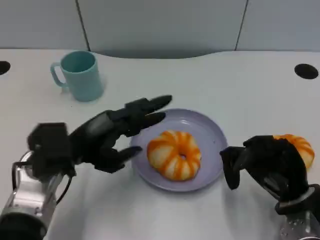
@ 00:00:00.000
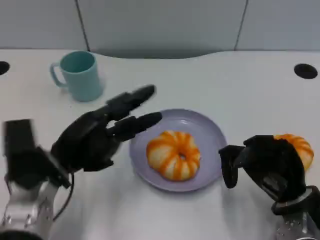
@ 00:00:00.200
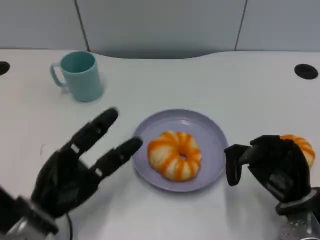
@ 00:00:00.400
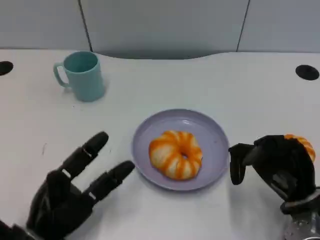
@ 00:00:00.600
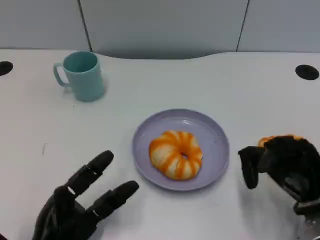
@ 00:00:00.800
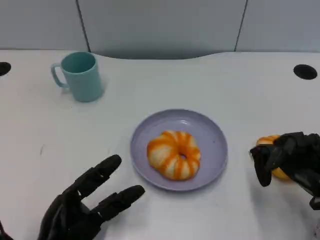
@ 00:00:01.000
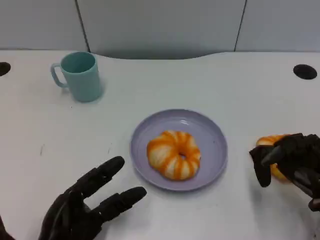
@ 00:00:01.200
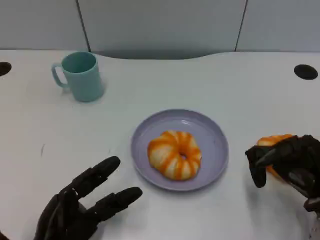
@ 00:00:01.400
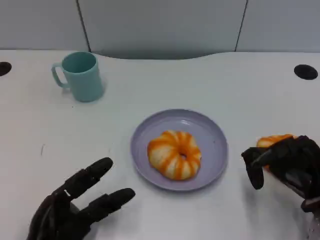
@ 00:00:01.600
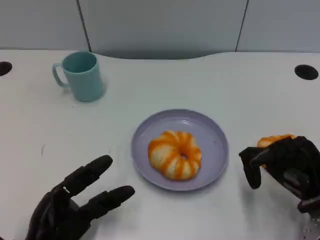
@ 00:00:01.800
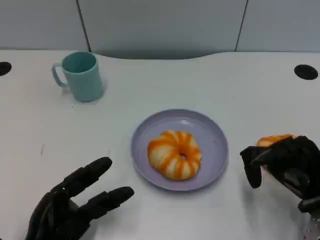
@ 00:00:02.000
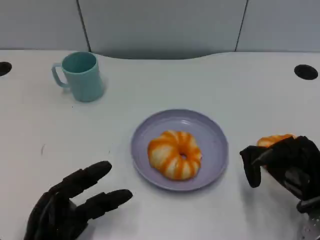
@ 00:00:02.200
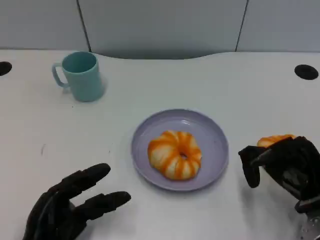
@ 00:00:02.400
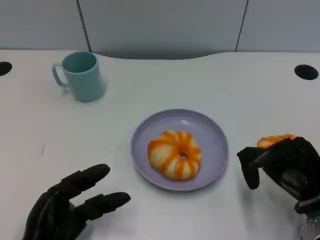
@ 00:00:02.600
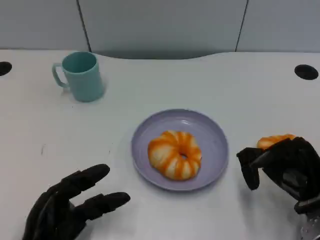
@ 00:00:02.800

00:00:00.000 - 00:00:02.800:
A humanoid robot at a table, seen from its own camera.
Task of the whole recording: Grasp the bread from the table and place it into the plate.
00:00:00.000 - 00:00:01.400: The left hand moves backward and downward, approximately 15 cm.
00:00:01.400 - 00:00:02.800: The hands stay close to where they were, moving slightly.

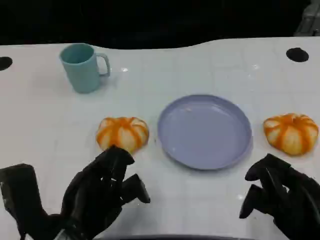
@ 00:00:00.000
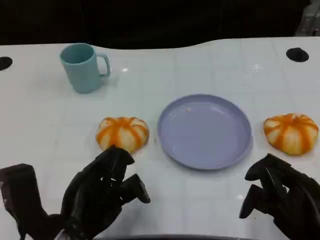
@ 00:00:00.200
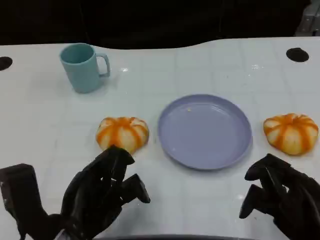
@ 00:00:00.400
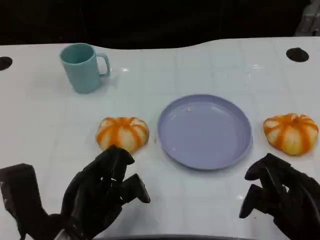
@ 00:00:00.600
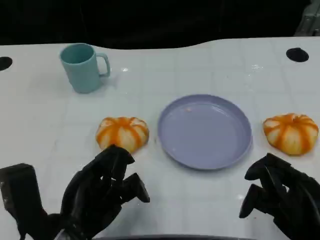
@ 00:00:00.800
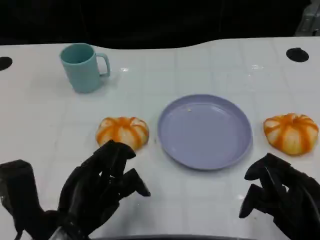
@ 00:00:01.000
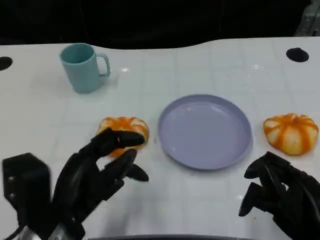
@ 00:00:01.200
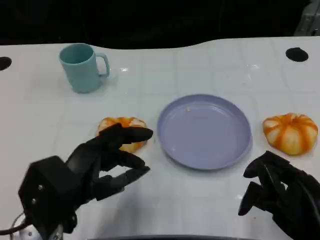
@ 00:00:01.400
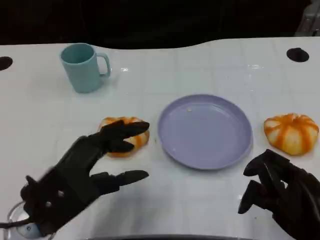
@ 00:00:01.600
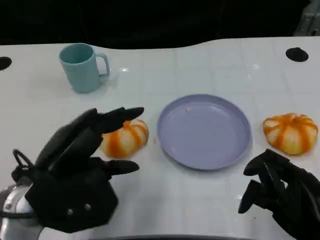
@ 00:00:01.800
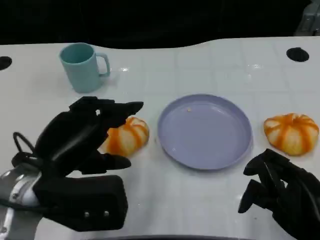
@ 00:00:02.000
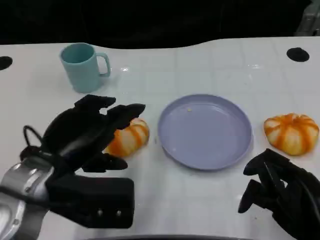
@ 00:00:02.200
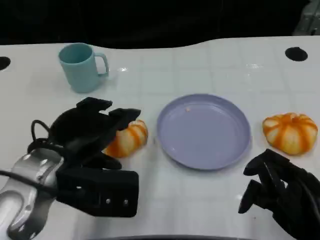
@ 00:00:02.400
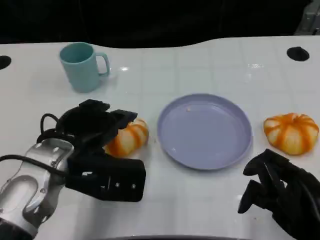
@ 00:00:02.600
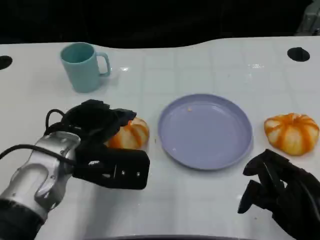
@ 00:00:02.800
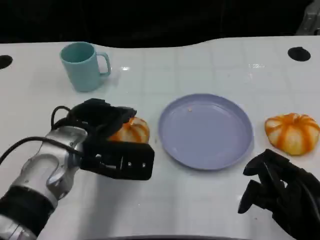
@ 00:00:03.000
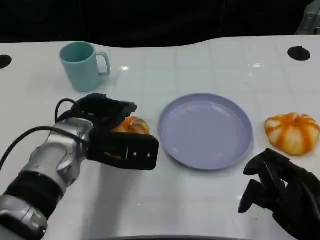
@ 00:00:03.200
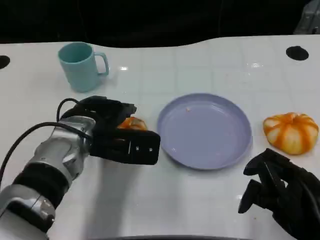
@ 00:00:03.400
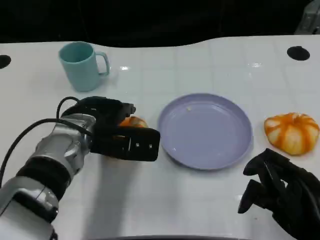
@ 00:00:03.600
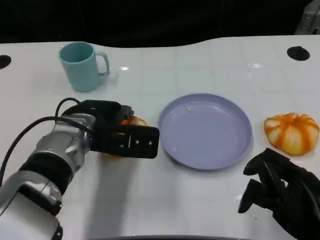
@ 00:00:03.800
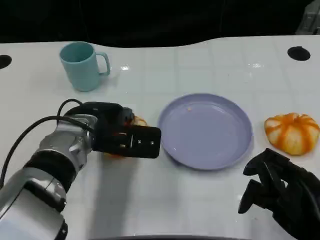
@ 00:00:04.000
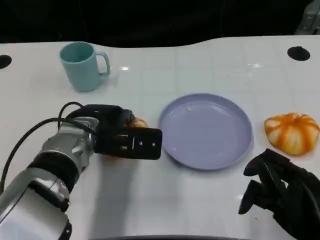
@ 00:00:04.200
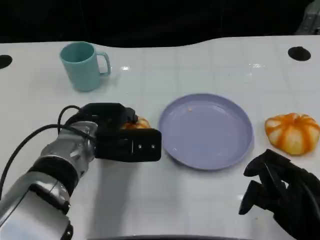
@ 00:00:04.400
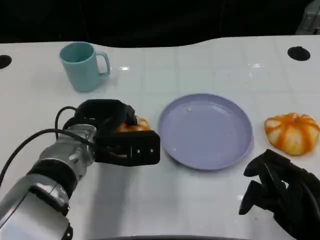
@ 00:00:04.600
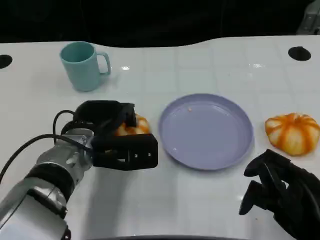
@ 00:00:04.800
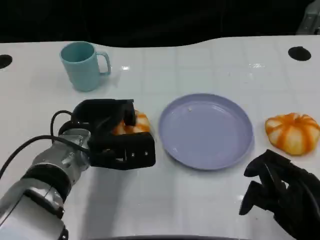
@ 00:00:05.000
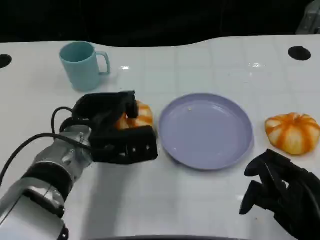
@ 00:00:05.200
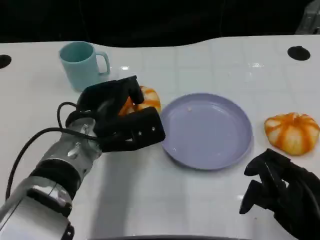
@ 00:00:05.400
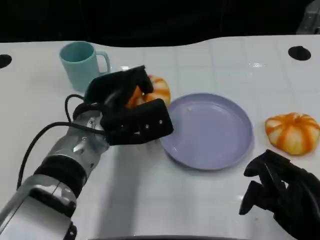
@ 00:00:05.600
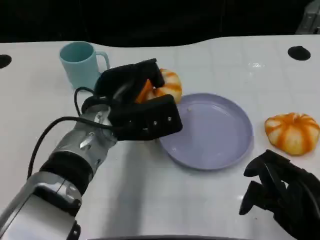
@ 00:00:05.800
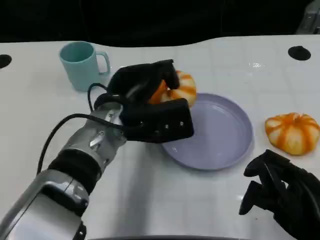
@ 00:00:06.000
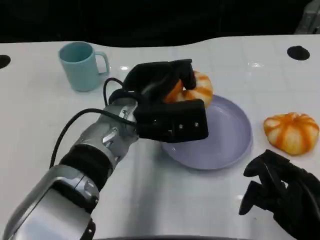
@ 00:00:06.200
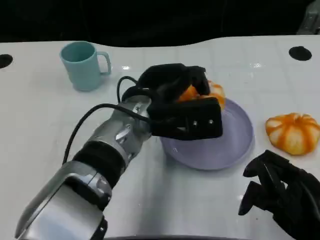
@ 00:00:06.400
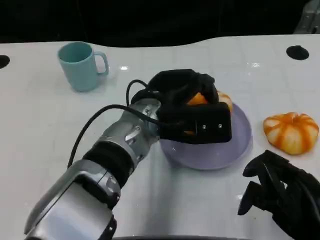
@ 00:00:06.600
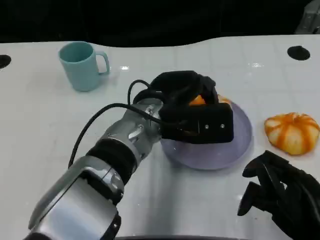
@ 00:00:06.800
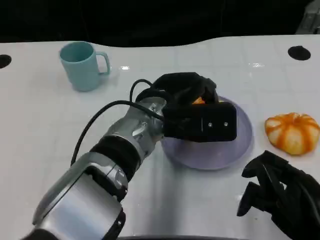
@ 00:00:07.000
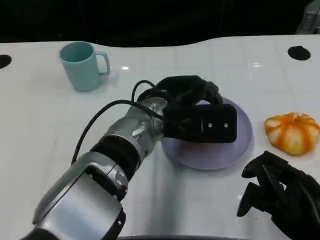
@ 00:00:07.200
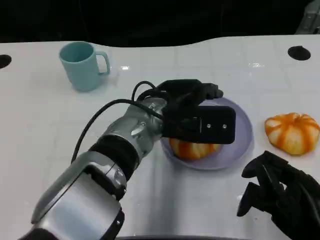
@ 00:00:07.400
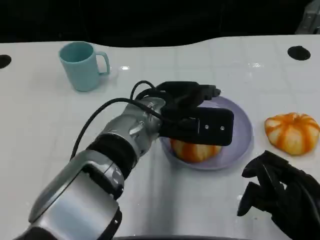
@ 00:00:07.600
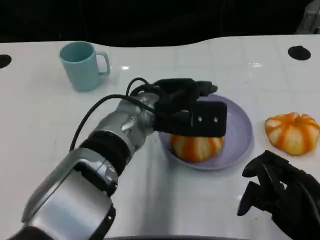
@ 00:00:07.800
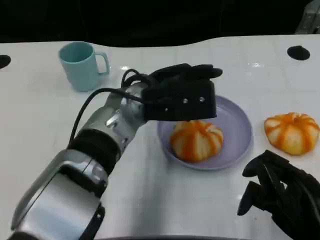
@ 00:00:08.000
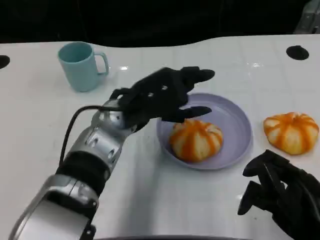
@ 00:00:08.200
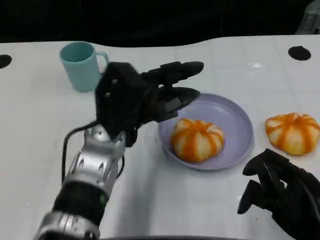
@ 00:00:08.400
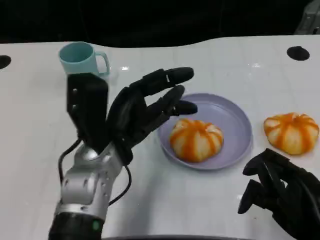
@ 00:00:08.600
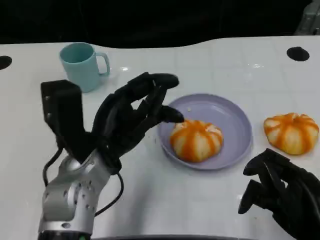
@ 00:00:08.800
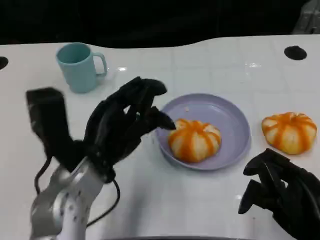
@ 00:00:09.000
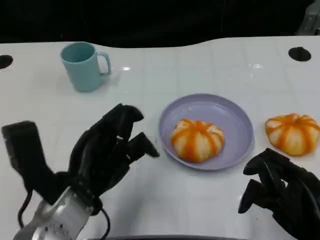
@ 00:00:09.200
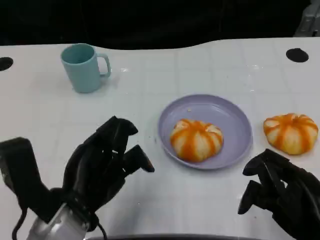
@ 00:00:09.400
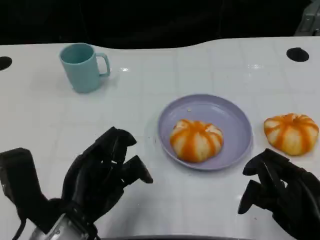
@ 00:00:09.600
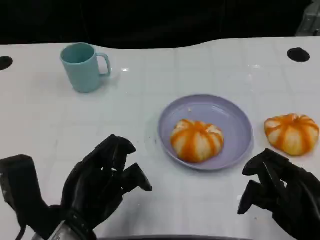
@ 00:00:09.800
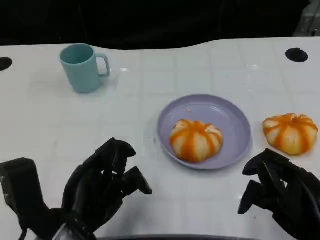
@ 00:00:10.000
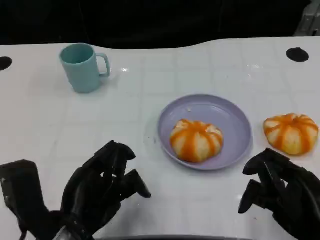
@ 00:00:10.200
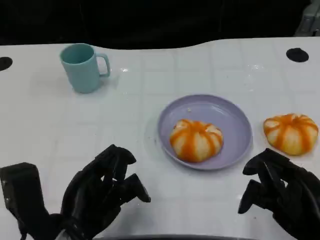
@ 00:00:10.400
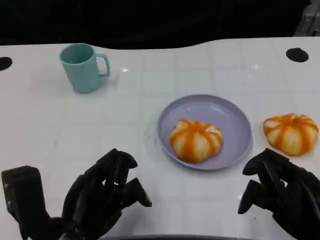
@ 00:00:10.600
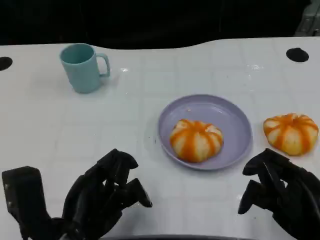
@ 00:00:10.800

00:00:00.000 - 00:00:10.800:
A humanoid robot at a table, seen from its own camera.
Task of the whole recording: Grasp the bread from the table and place it into the plate.
00:00:00.000 - 00:00:01.600: The left hand ends up approximately 5 cm from where it was.
00:00:01.600 - 00:00:03.000: The left hand is displaced forward by roughly 10 cm.
00:00:03.000 - 00:00:04.600: The hands make only small movements.
00:00:04.600 - 00:00:06.200: The left hand heads to the right and upward, covering about 10 cm.
00:00:07.800 - 00:00:09.200: The left hand moves backward and to the left, about 15 cm.
00:00:09.200 - 00:00:10.800: The hands move only a little.

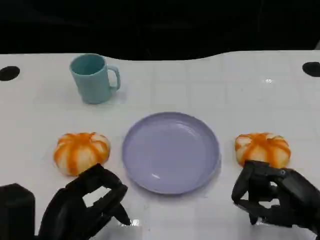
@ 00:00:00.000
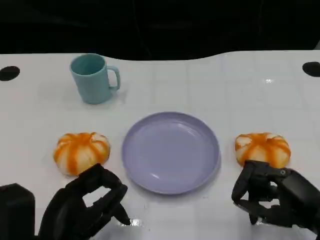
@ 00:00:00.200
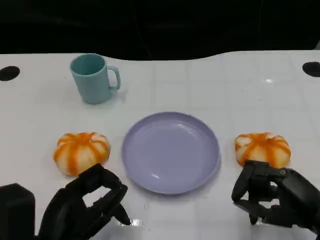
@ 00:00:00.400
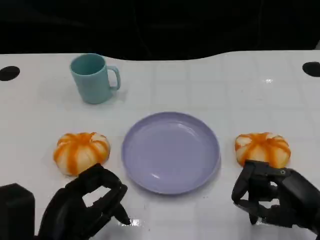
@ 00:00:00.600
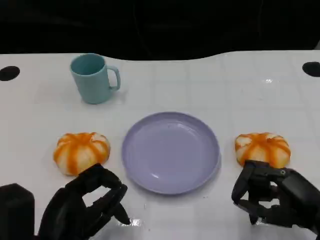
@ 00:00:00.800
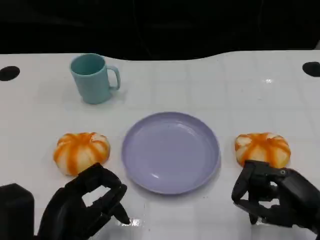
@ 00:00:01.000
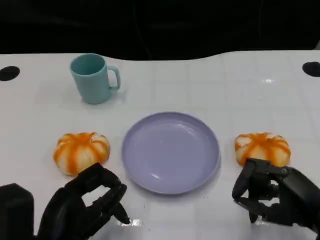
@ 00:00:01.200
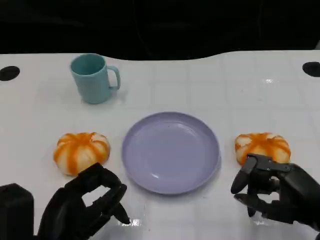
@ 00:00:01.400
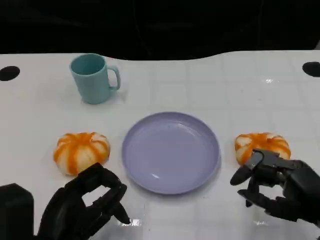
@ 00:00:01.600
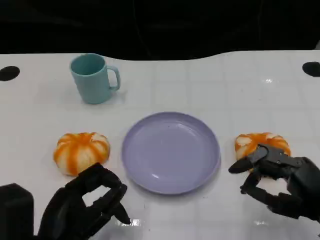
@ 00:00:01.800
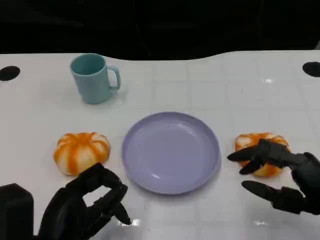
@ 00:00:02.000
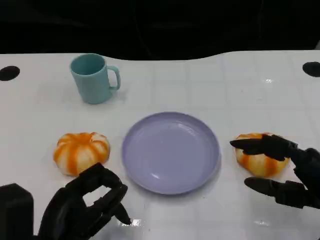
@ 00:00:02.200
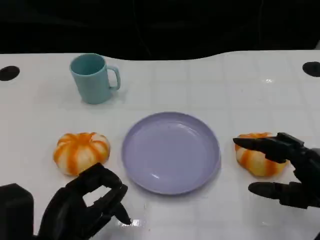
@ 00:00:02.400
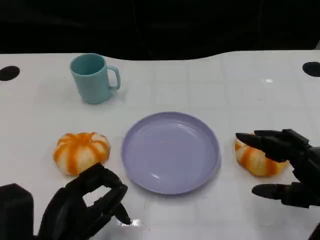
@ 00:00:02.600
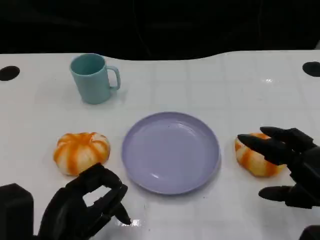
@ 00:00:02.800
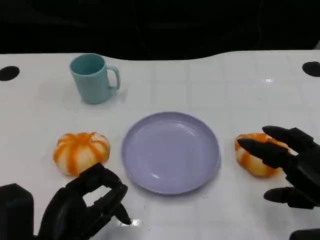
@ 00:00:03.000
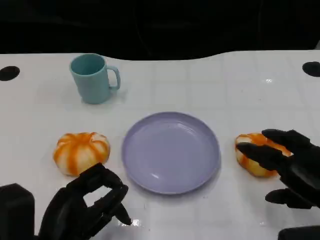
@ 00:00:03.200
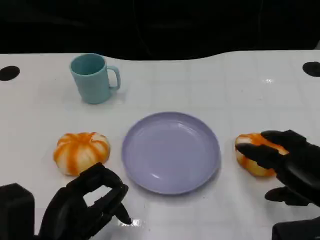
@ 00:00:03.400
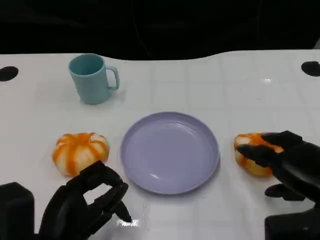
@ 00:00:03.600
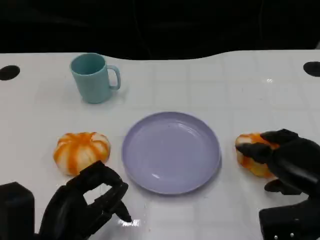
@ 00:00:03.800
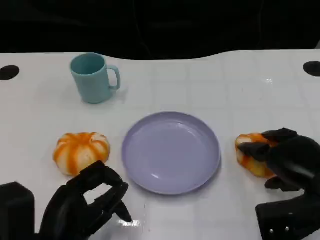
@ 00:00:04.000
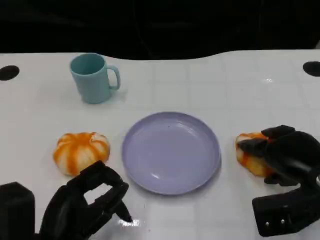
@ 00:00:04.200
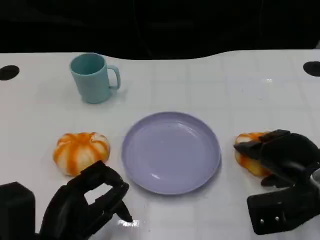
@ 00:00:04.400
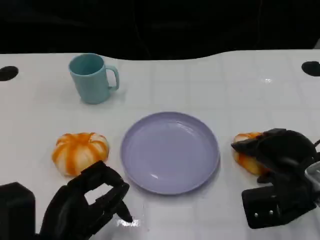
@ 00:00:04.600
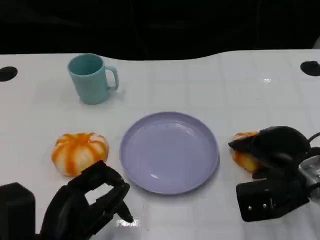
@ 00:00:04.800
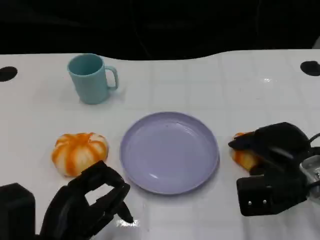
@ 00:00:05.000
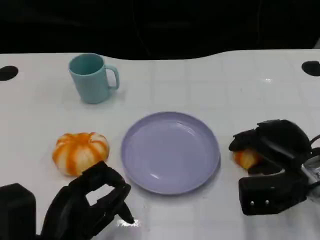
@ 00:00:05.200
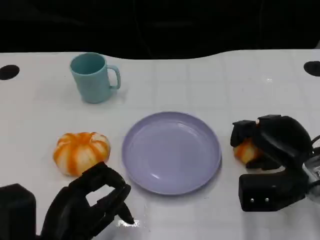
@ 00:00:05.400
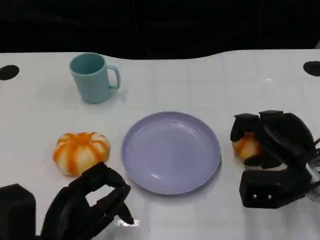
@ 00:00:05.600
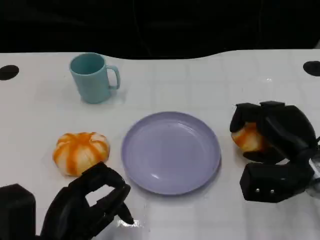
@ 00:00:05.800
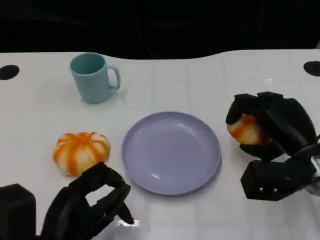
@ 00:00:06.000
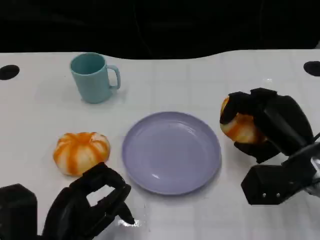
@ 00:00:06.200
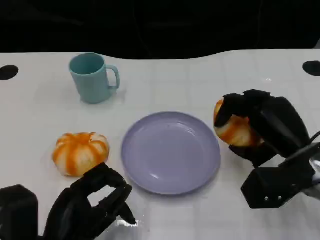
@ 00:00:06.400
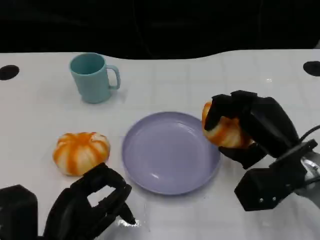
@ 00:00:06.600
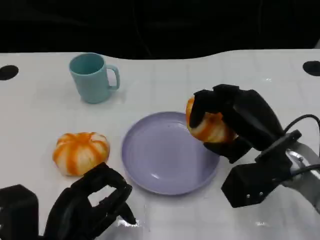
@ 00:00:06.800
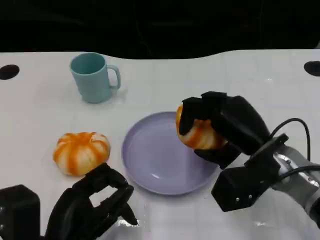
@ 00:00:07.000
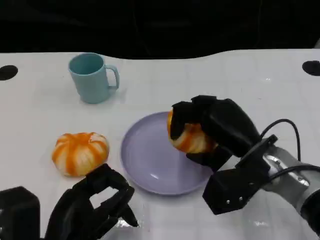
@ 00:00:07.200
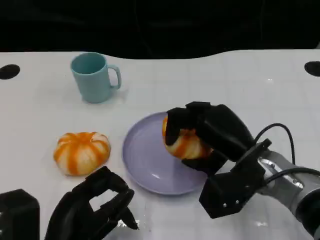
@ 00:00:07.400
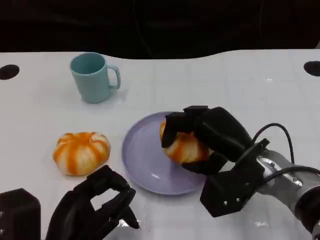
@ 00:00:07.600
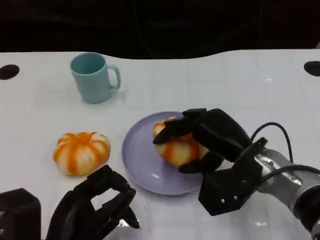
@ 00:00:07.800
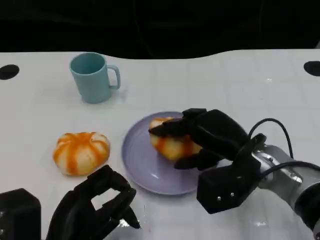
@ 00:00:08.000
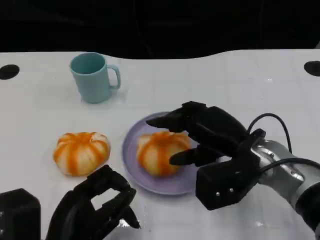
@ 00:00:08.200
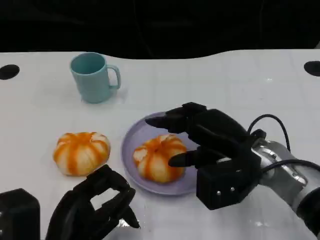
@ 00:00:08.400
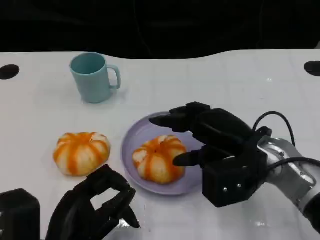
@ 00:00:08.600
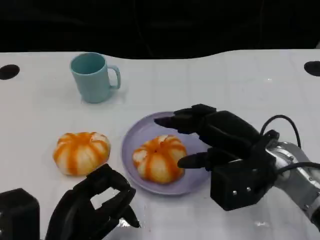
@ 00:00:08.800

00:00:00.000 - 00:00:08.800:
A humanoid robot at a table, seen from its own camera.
Task of the whole recording: Grasp the bread from the table and place it into the plate.
00:00:00.000 - 00:00:01.400: The hands move only a little.
00:00:03.000 - 00:00:04.400: The right hand travels forward by about 5 cm.
00:00:05.800 - 00:00:07.400: The right hand goes roughly 10 cm to the left.
00:00:07.400 - 00:00:08.800: There are only small adjustments of the hands.
